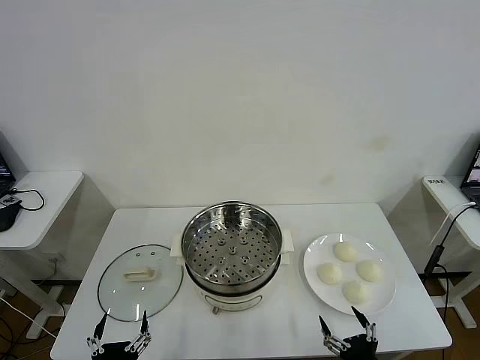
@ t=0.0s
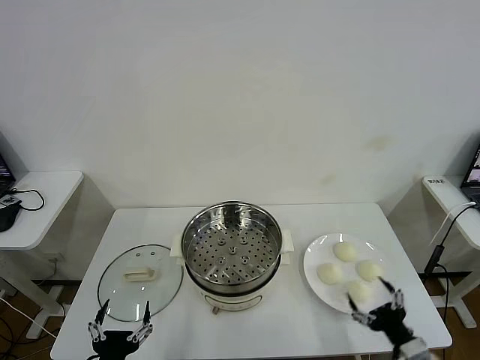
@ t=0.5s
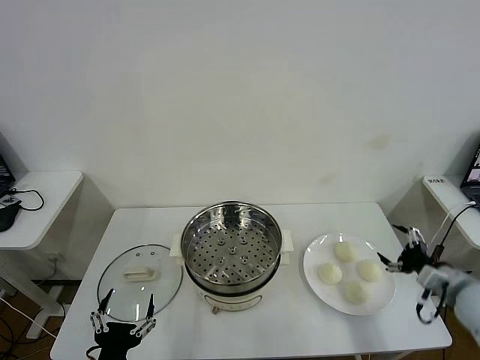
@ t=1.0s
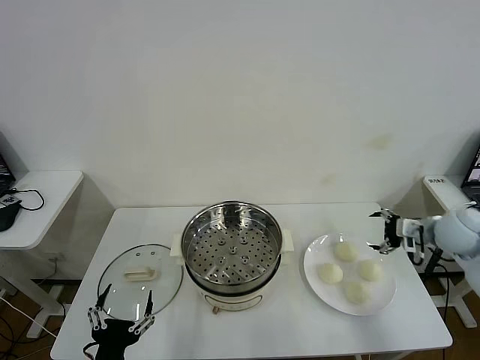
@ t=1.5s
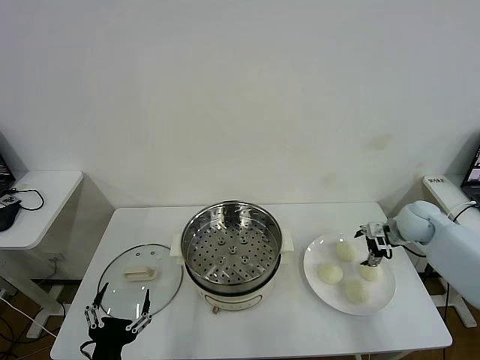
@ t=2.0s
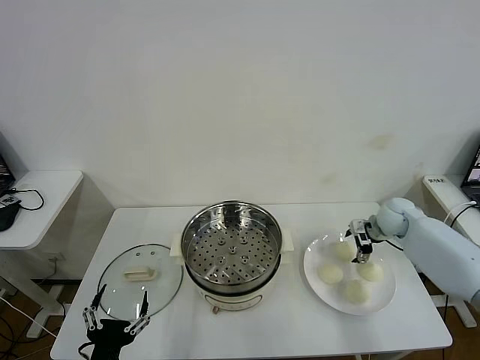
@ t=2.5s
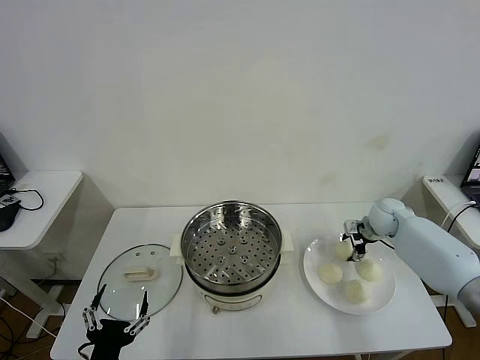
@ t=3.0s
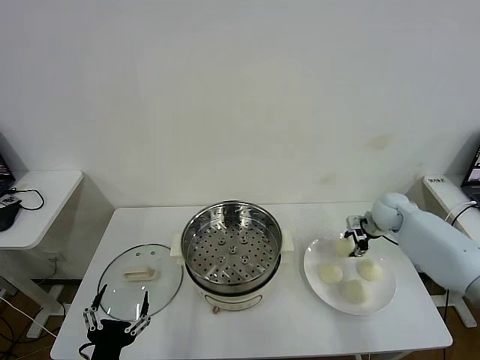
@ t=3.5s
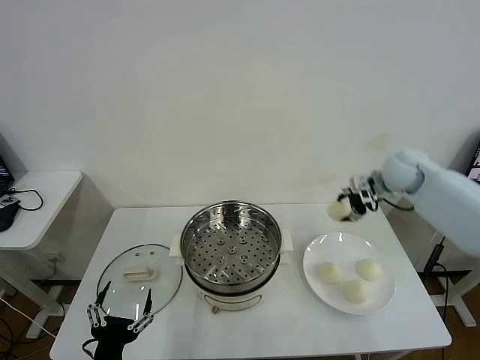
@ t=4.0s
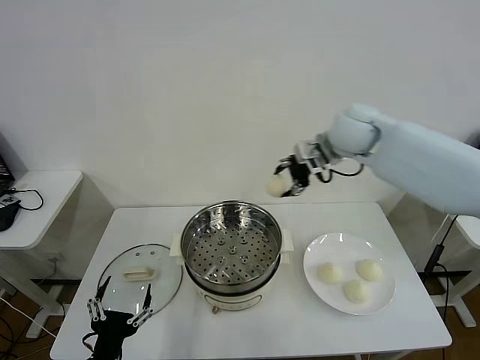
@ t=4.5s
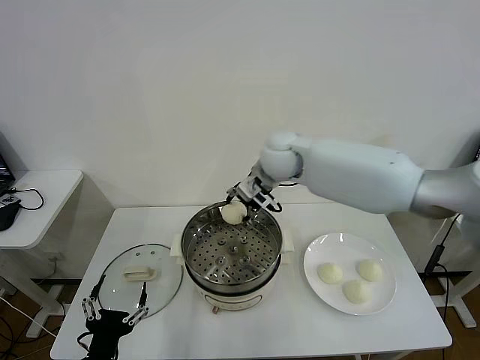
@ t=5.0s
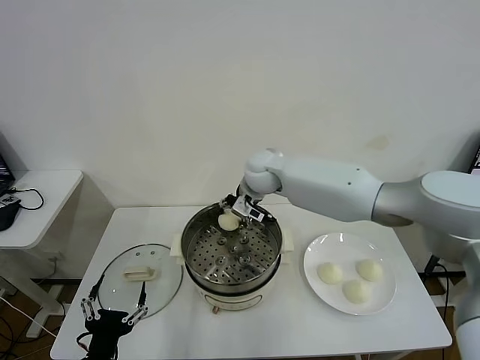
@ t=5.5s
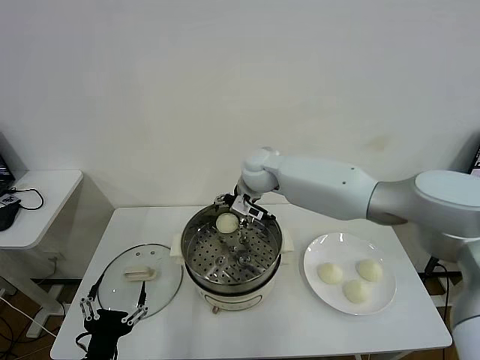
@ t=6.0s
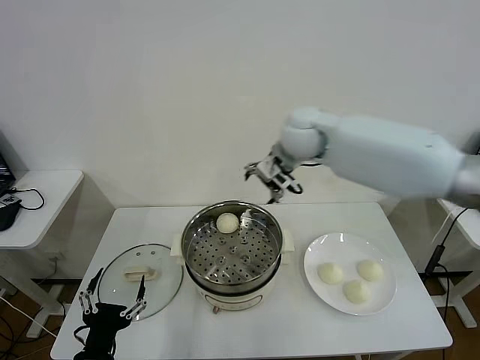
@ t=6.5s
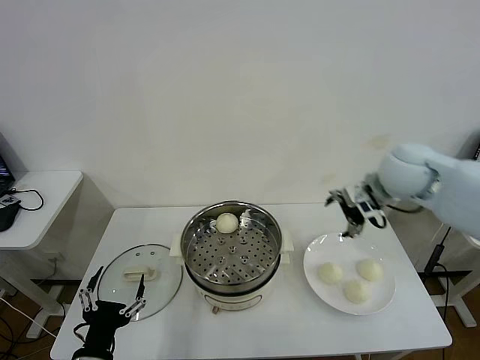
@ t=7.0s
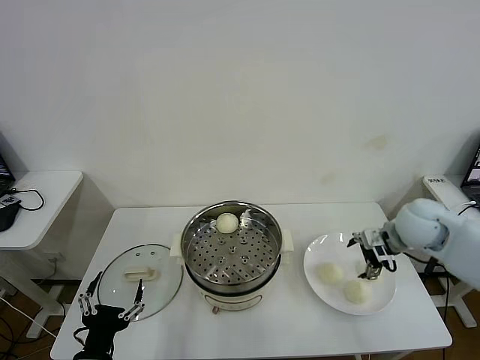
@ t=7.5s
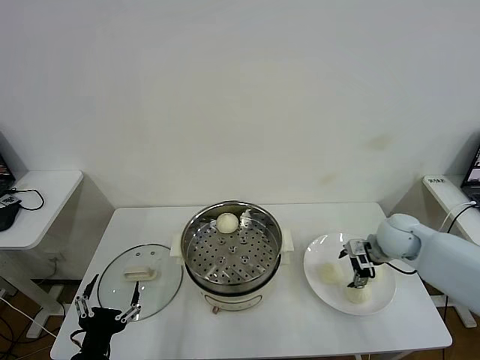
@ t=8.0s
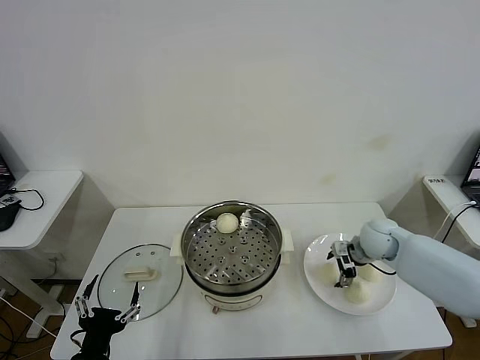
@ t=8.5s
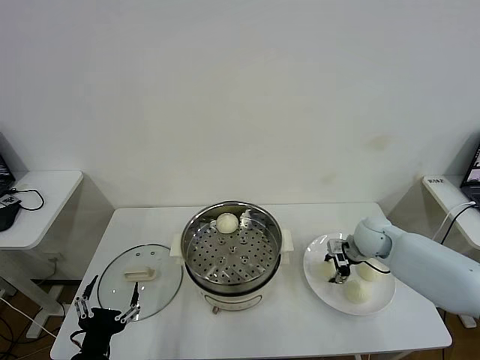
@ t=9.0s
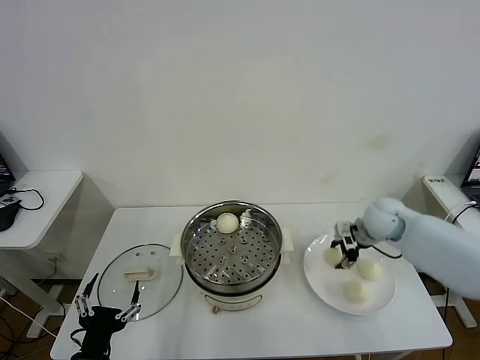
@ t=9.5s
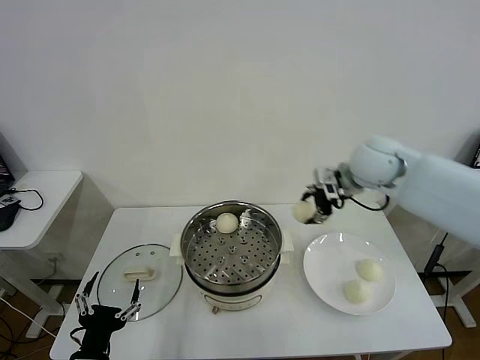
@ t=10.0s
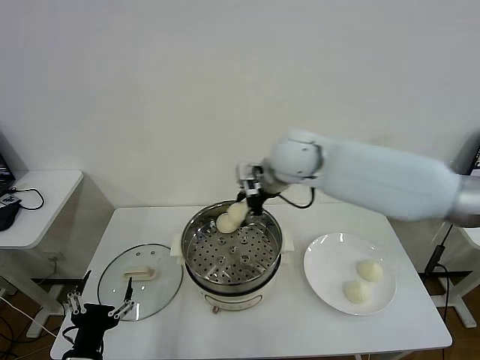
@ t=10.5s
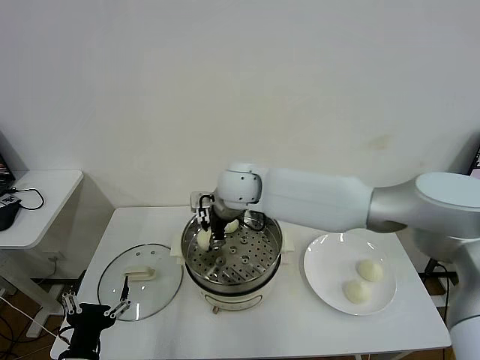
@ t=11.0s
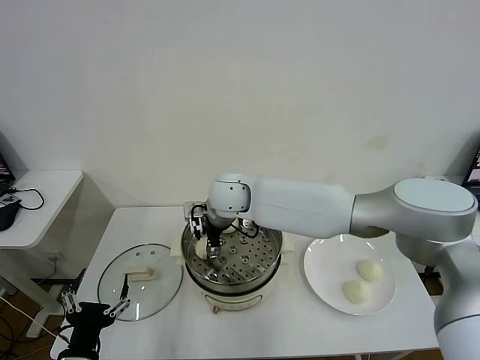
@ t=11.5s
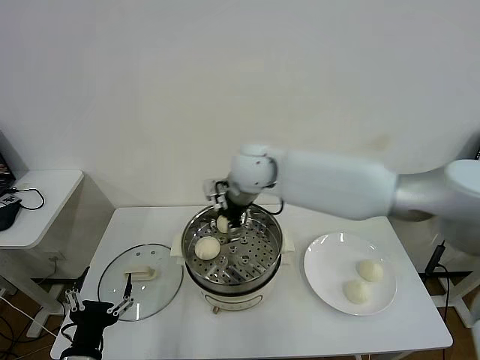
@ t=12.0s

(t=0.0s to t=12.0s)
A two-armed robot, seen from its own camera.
Task of the whole recording: take steamed baozi put them in steamer then cover it.
Step, t=0.0s - t=3.0s: Grasp the baozi in the plate with right gripper.
Step, t=3.5s - t=5.5s: Place the baozi on the steamer with right gripper.
Step, t=6.0s - t=9.0s: Grasp the baozi in the plate with right gripper.
Step, t=9.5s - t=11.5s: Place the baozi on the steamer with right gripper.
t=2.0s - t=4.0s: The right gripper goes about 15 cm upward and to the left, and closes its fingers.
t=4.0s - t=6.0s: The right gripper goes some 30 cm to the left, and opens up.
t=6.0s - t=8.0s: The right gripper heads to the right, covering some 30 cm.
t=8.0s - t=10.0s: The right gripper moves upward and to the left, roughly 20 cm, and closes up.
t=10.0s - t=12.0s: The right gripper heads to the left, covering approximately 20 cm, and opens up.

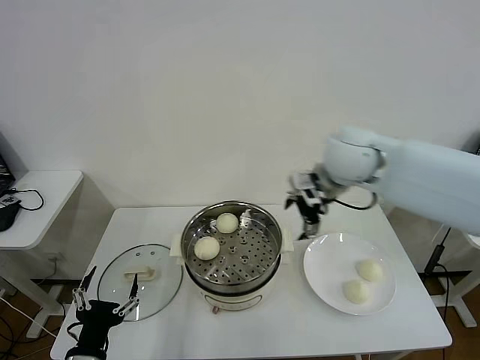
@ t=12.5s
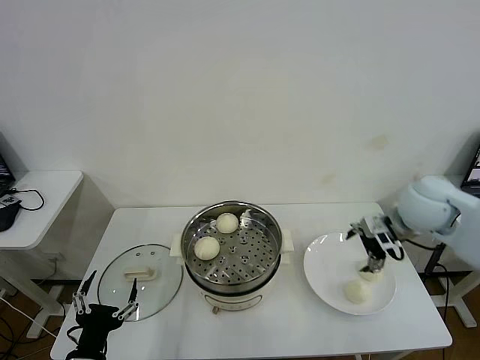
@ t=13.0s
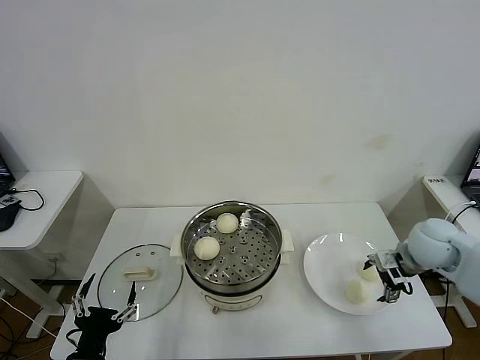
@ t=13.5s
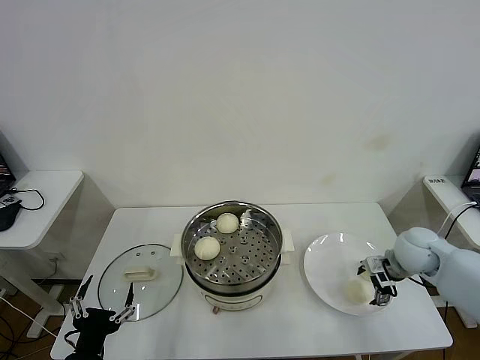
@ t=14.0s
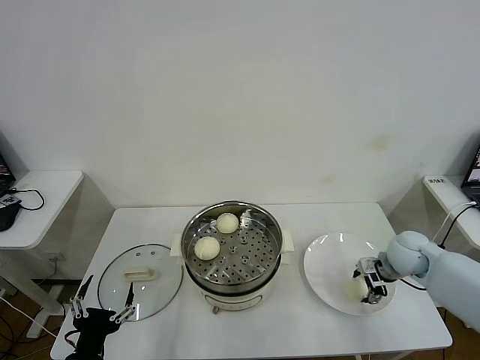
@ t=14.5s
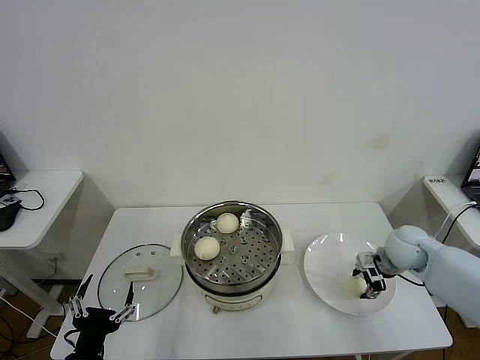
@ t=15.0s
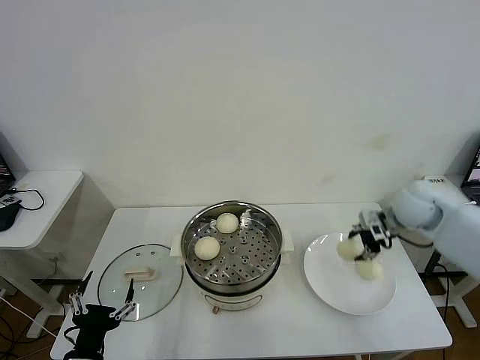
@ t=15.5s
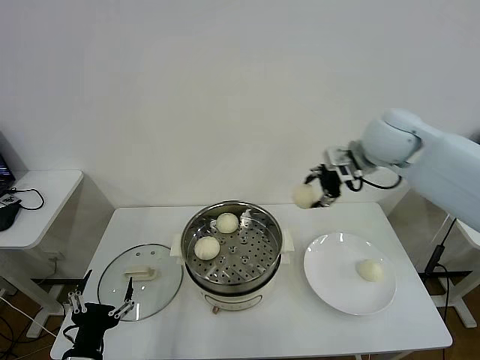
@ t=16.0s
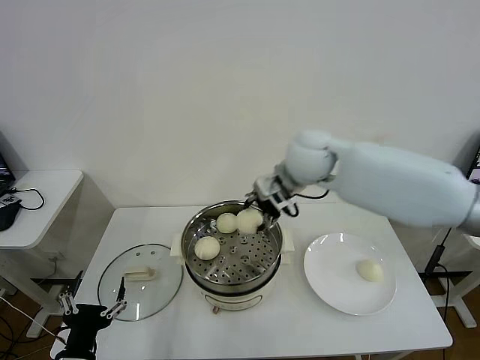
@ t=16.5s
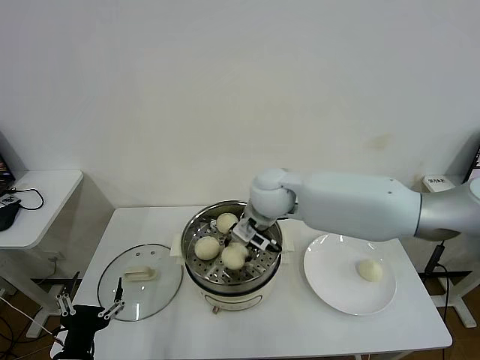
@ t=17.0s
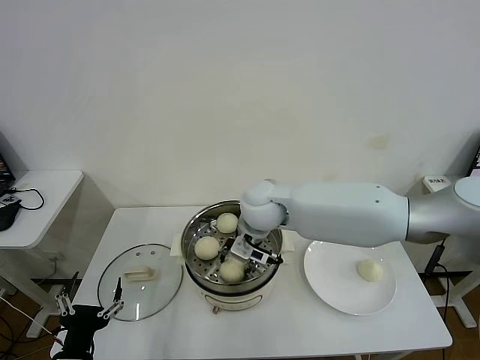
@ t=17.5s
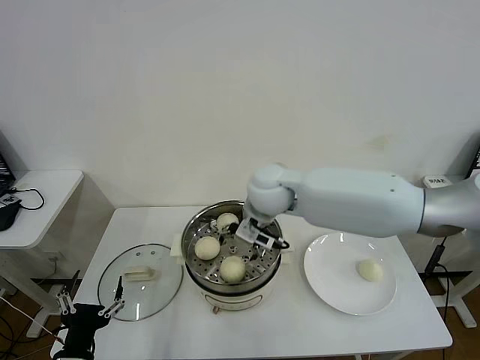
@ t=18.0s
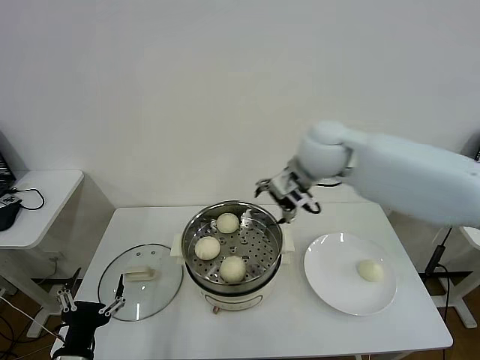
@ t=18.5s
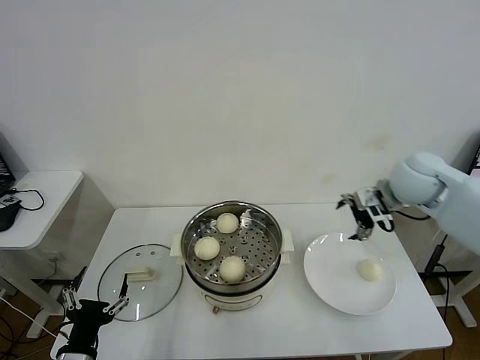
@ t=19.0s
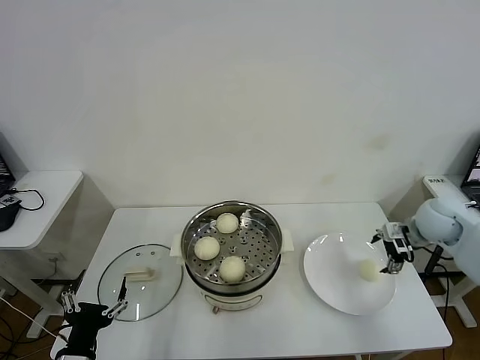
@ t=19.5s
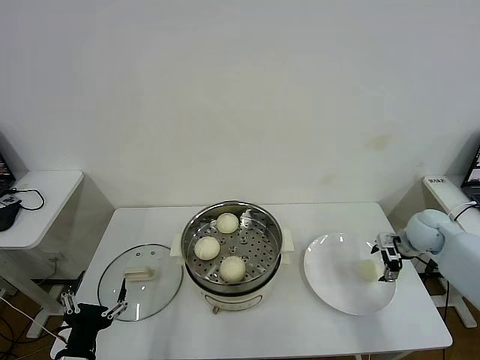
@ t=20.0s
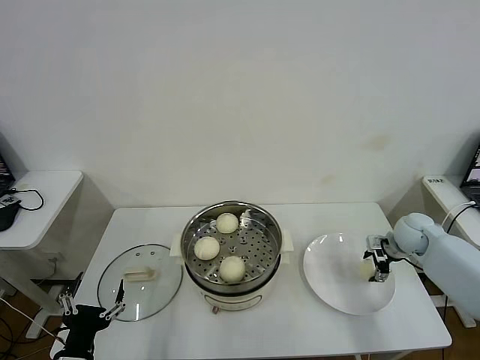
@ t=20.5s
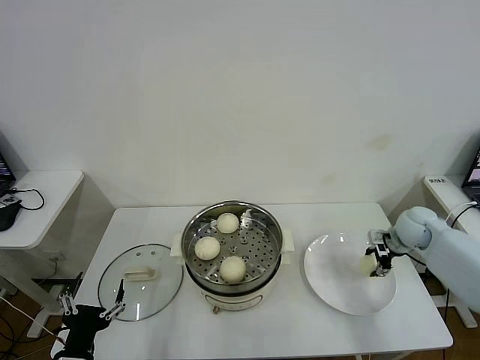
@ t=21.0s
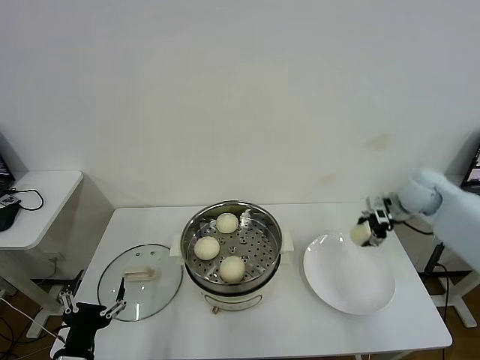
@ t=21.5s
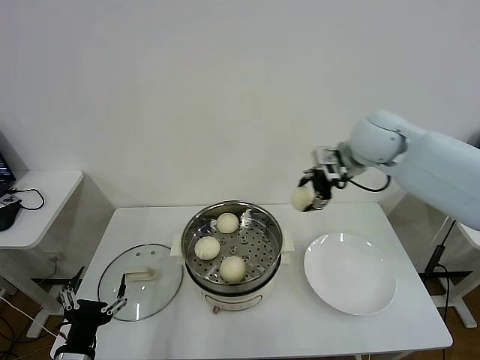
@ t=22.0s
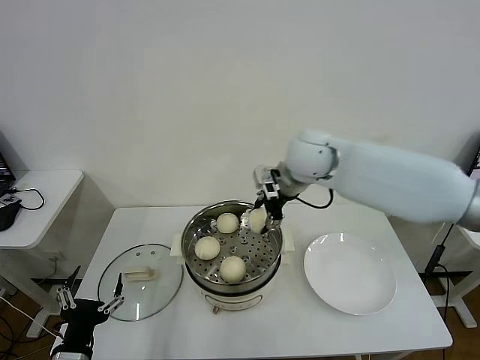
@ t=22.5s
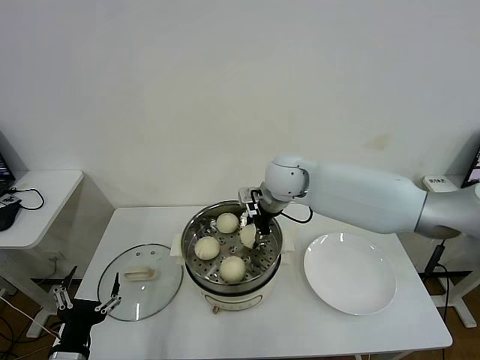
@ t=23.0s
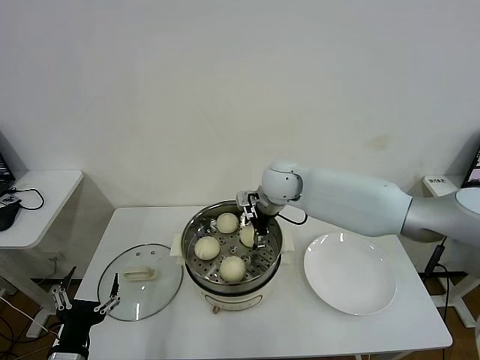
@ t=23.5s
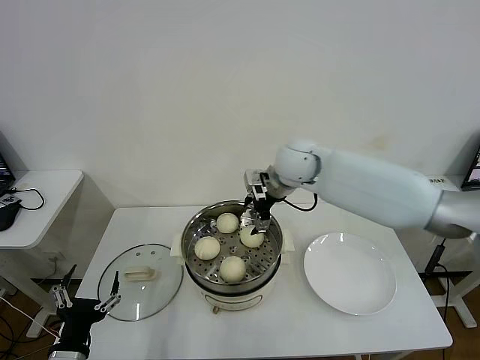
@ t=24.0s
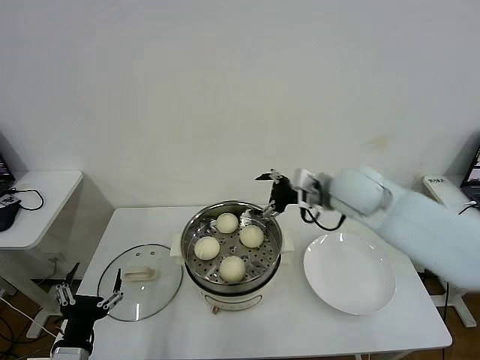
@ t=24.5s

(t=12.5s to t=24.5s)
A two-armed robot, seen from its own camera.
Task of the whole recording: take steamed baozi put them in steamer then cover it.
Step, t=12.5s - t=14.5s: Grasp the baozi in the plate with right gripper.
Step, t=15.0s - t=17.5s: Place the baozi on the steamer with right gripper.
Step, t=18.0s - t=20.5s: Grasp the baozi in the plate with right gripper.
Step, t=21.0s - t=23.5s: Place the baozi on the steamer with right gripper.
t=12.5s - t=14.5s: The right gripper moves downward and to the right, approximately 30 cm, and closes up.
t=14.5s - t=16.5s: The right gripper goes roughly 35 cm to the left and upward, and closes its fingers.
t=16.5s - t=18.5s: The right gripper moves about 10 cm to the left and comes back, and opens.
t=18.5s - t=20.5s: The right gripper is displaced to the right and downward by about 35 cm, and closes its fingers.
t=20.5s - t=22.5s: The right gripper moves to the left and upward, approximately 35 cm.
t=22.5s - t=24.5s: The right gripper is displaced to the right and backward by some 10 cm, and opens its fingers.

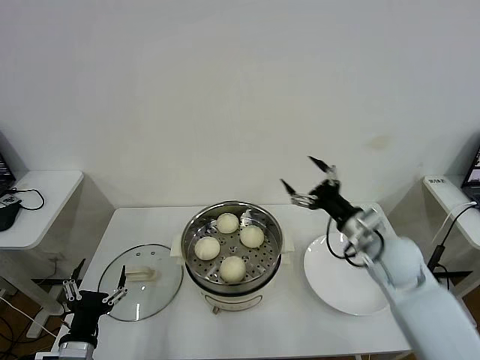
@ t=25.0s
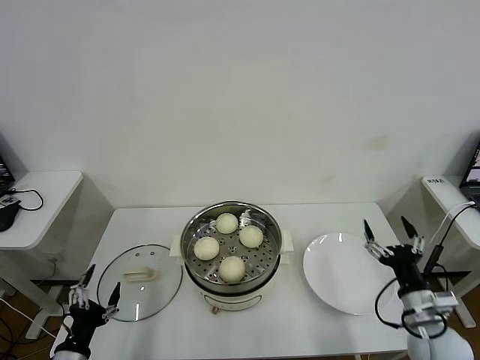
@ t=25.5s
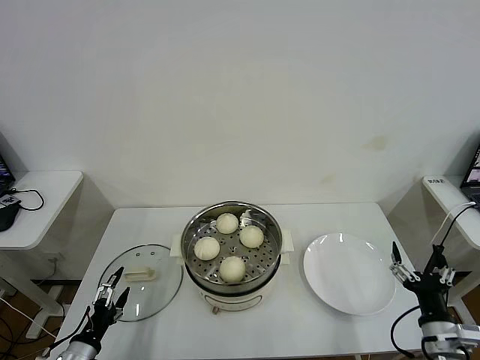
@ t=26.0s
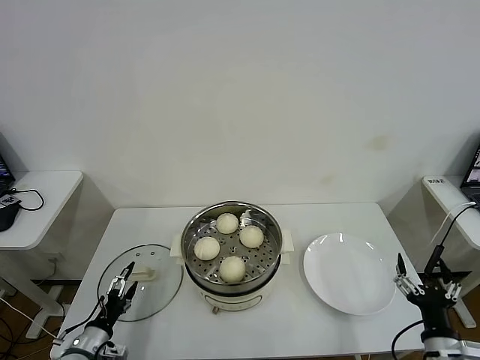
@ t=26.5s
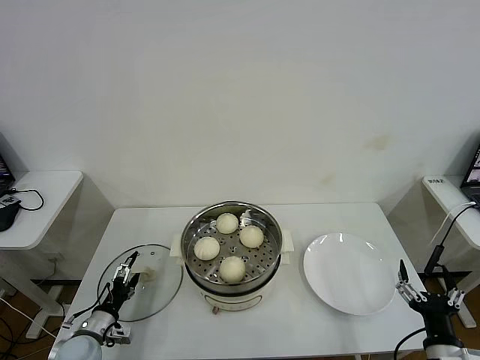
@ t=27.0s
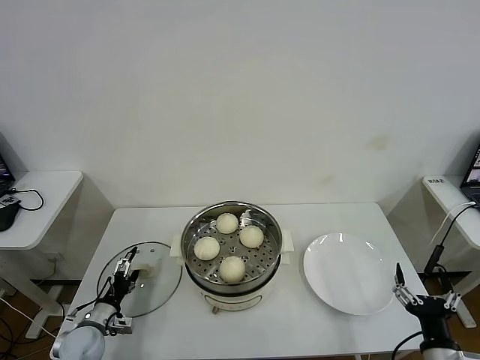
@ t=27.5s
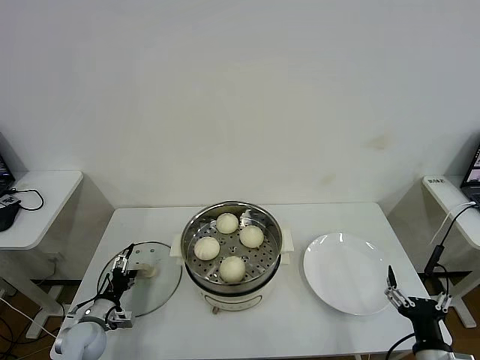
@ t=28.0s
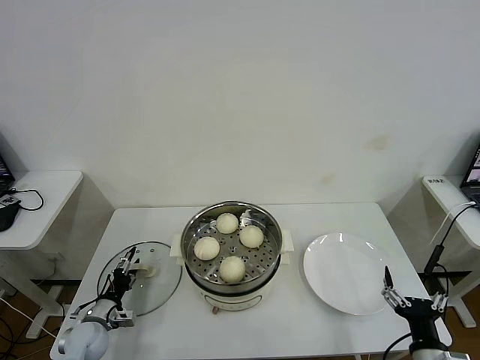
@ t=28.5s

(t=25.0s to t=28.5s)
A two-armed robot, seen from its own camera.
Task of the whole recording: take steamed baozi put them in steamer then cover it.
t=25.0s - t=27.0s: The right gripper shifts roughly 25 cm backward and downward. The left gripper is displaced downward, forward and to the left by roughly 15 cm.
t=27.0s - t=28.5s: The left gripper moves roughly 5 cm.
